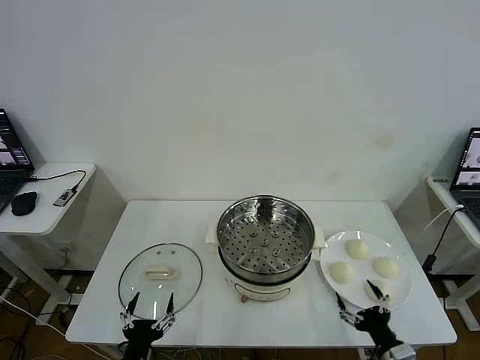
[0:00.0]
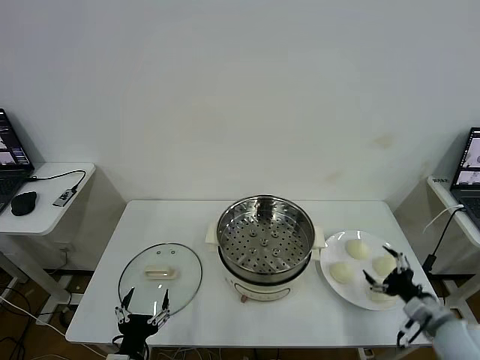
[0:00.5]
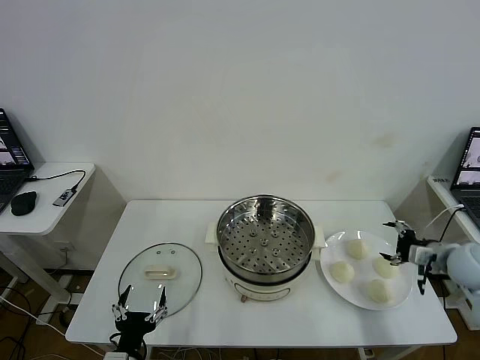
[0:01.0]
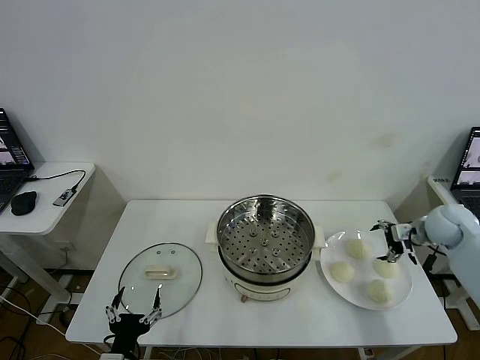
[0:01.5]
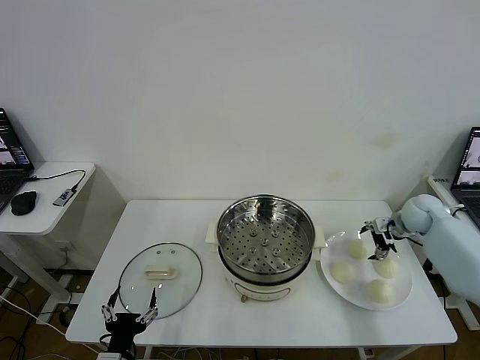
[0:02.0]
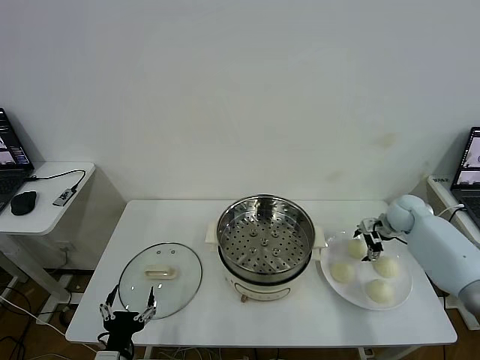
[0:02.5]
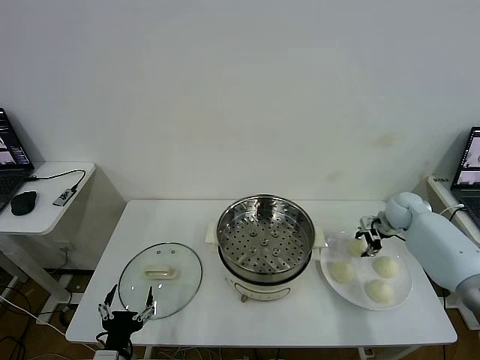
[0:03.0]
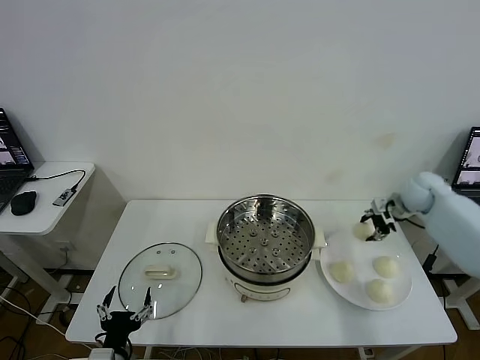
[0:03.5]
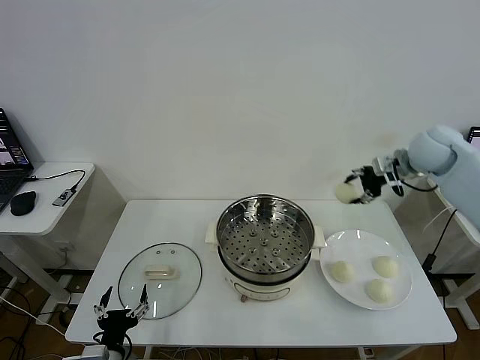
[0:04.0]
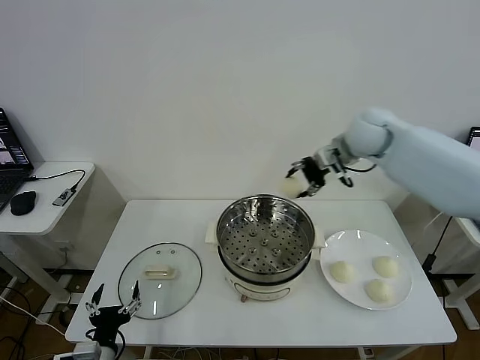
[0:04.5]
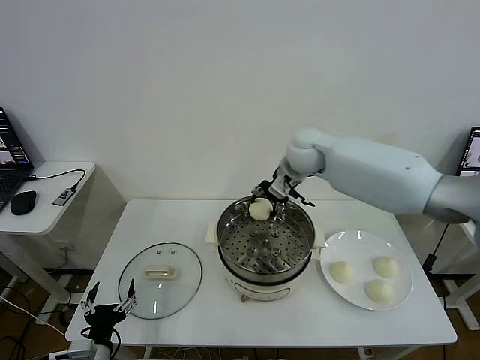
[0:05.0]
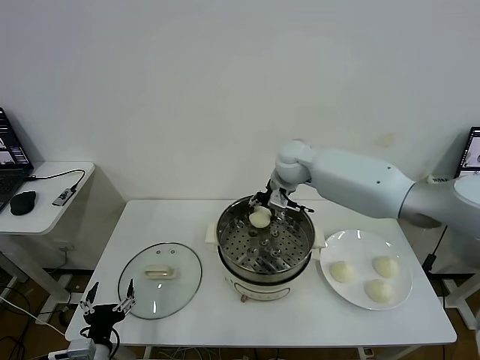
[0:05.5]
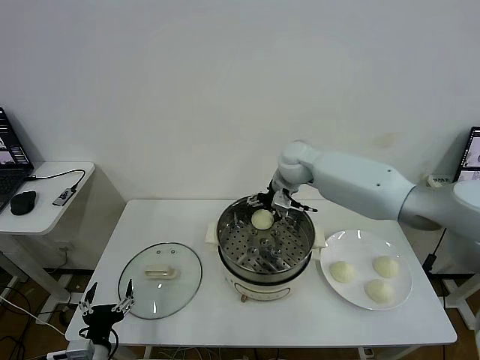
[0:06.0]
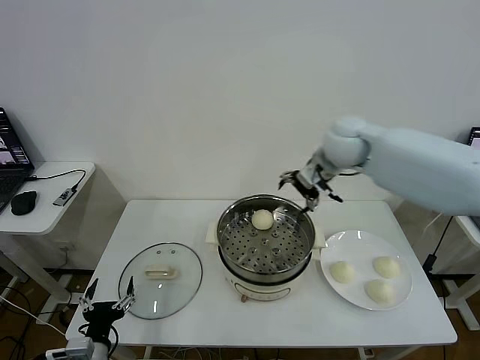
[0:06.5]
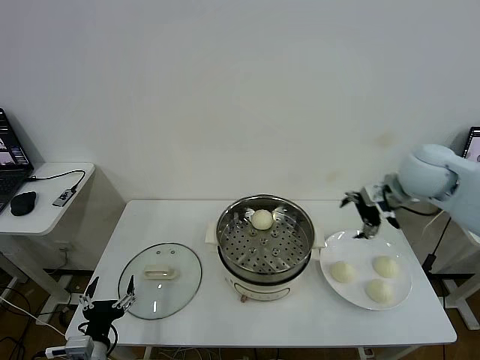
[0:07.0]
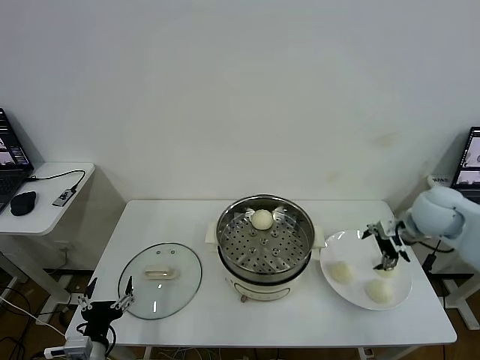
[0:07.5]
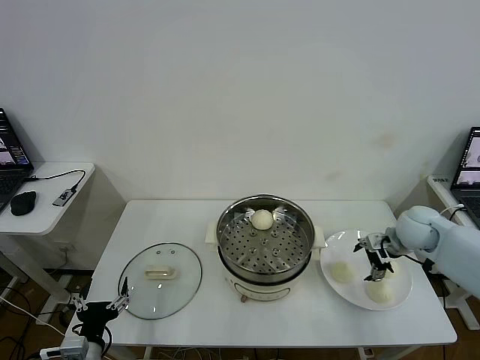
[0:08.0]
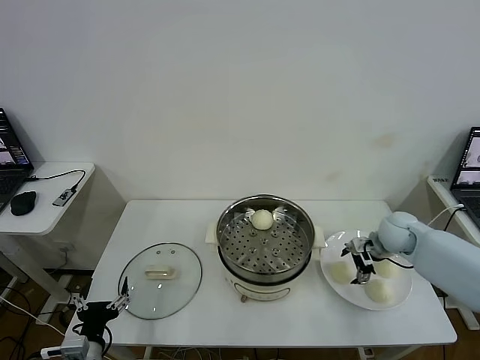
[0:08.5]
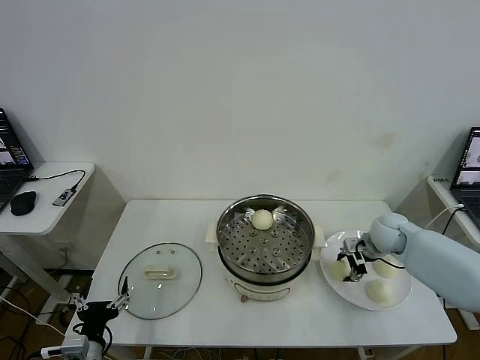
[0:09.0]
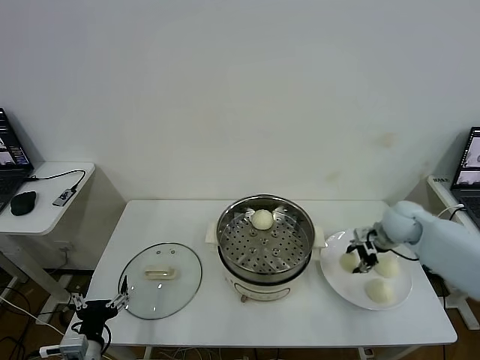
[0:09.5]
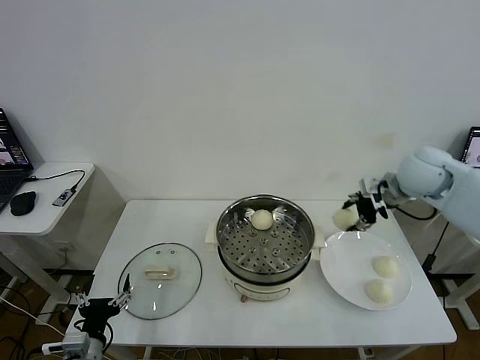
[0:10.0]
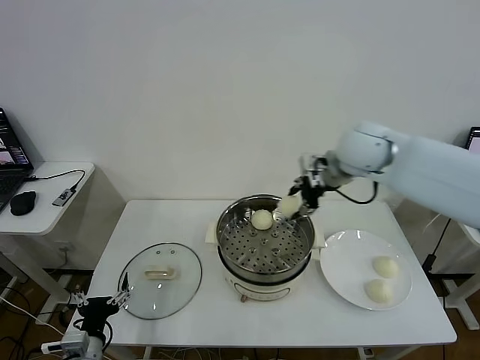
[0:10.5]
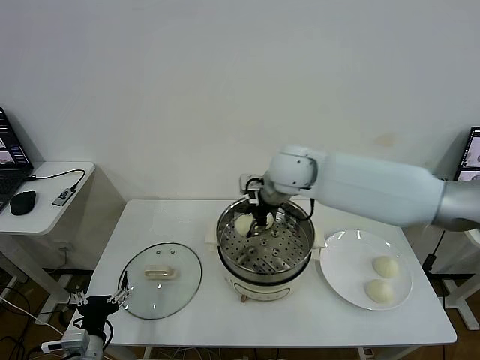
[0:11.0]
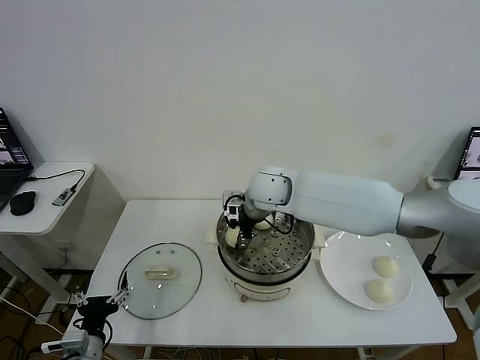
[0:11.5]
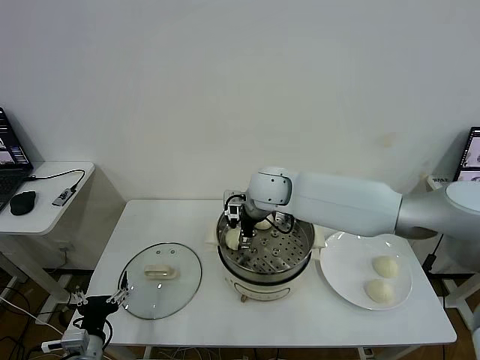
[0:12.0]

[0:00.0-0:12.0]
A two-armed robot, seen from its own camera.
Task of the whole recording: take steamed baozi put them in steamer then cover it.
Step, 0.0 to 2.5 s: Grasp the baozi in the plate with right gripper.
Step, 3.0 to 6.0 s: Place the baozi on the steamer with right gripper.
Step, 6.5 to 9.0 s: Grasp the baozi in the plate with right gripper.
2.0 to 4.0 s: The right gripper goes about 20 cm upward, and closes its fingers.
4.0 to 6.0 s: The right gripper moves to the left, about 25 cm, and opens its fingers.
6.0 to 8.0 s: The right gripper moves to the right, downward and backward, some 30 cm.
8.0 to 10.0 s: The right gripper shifts approximately 15 cm upward, and closes up.
10.0 to 12.0 s: The right gripper heads to the left, covering some 25 cm, and opens.

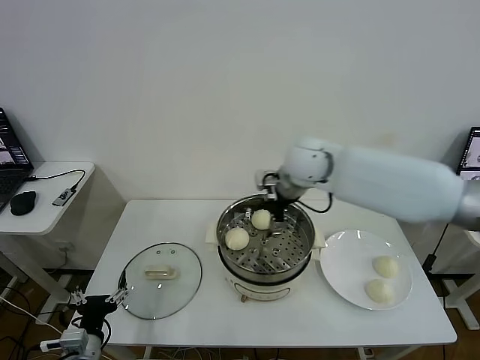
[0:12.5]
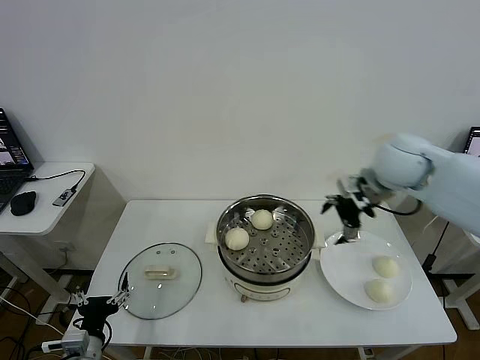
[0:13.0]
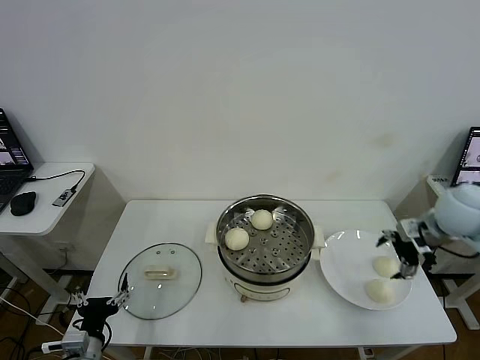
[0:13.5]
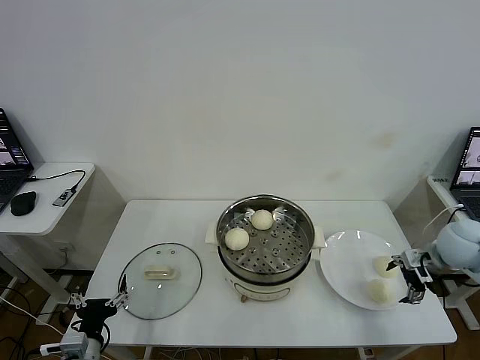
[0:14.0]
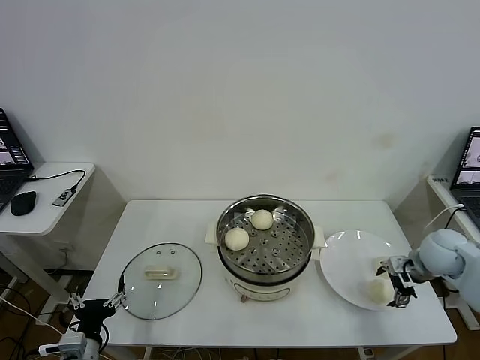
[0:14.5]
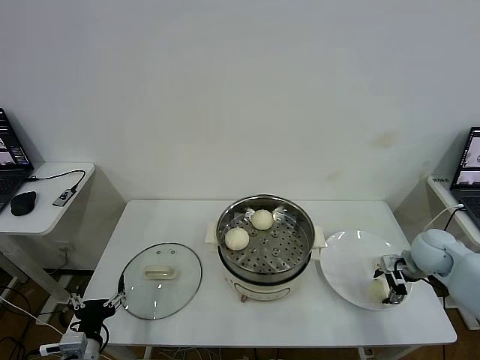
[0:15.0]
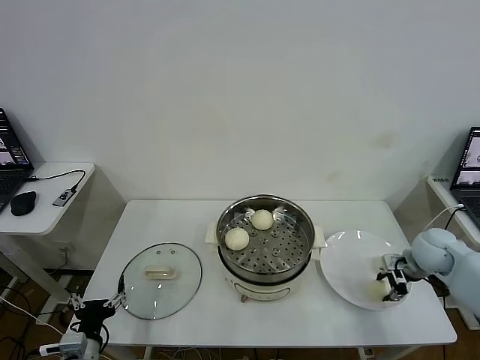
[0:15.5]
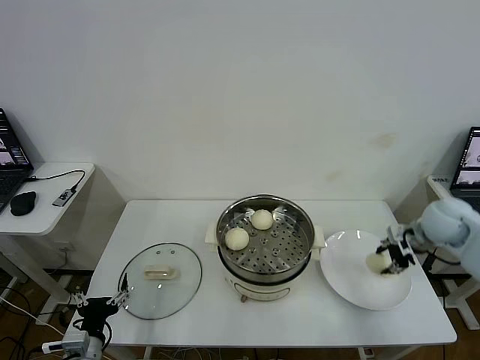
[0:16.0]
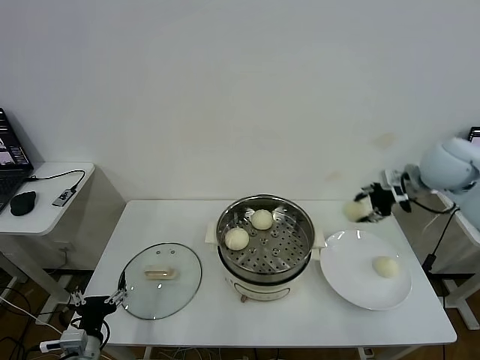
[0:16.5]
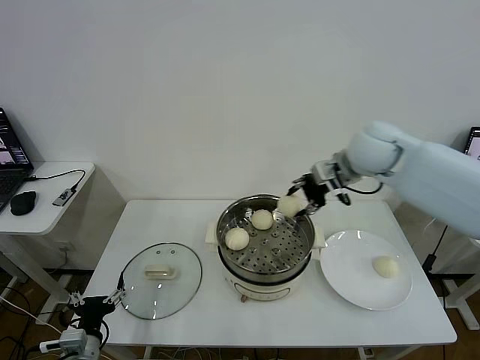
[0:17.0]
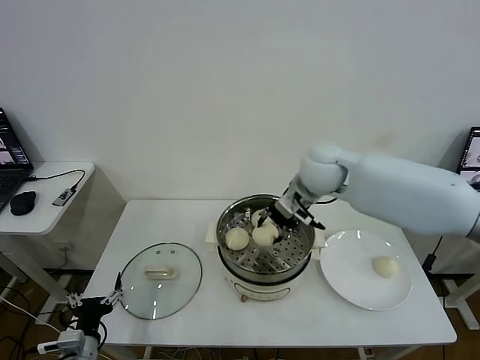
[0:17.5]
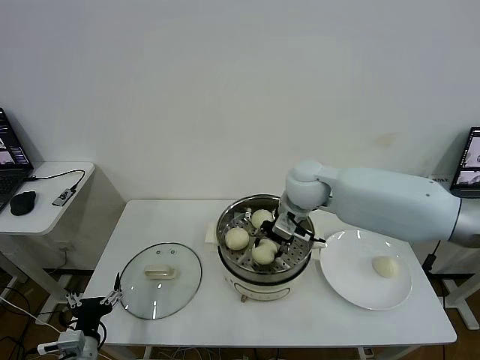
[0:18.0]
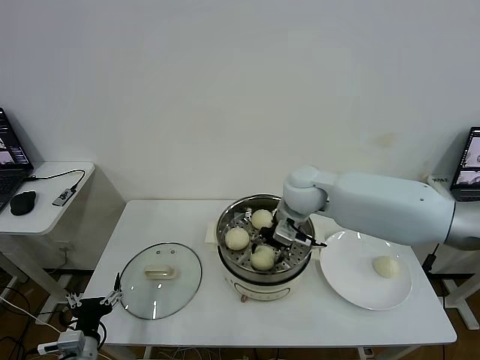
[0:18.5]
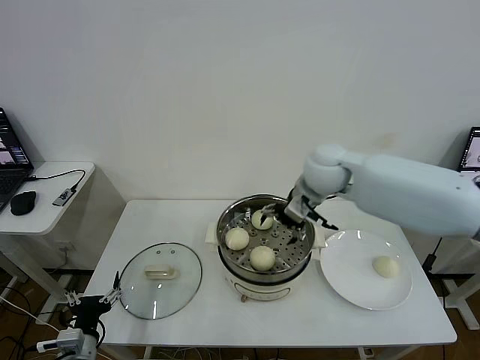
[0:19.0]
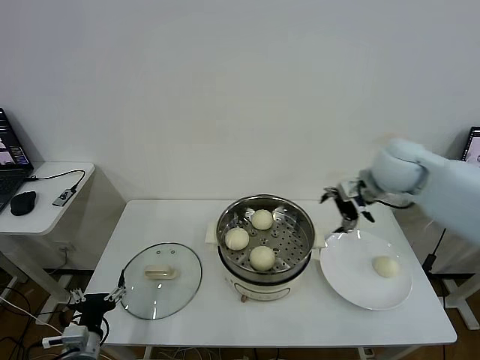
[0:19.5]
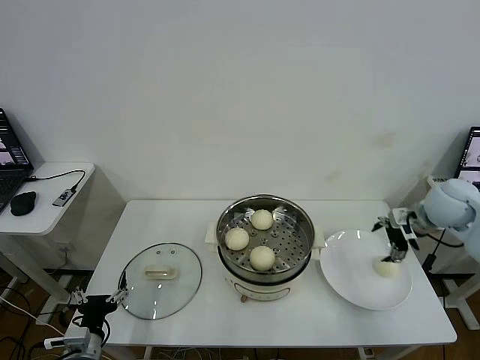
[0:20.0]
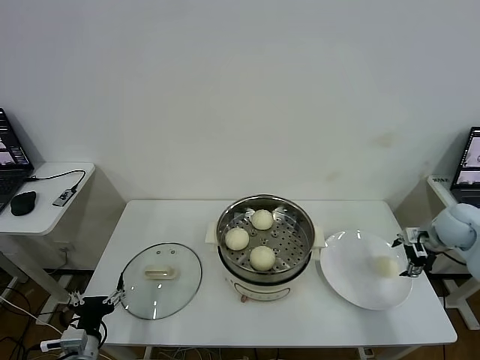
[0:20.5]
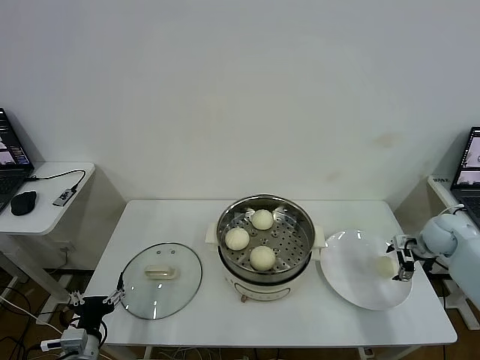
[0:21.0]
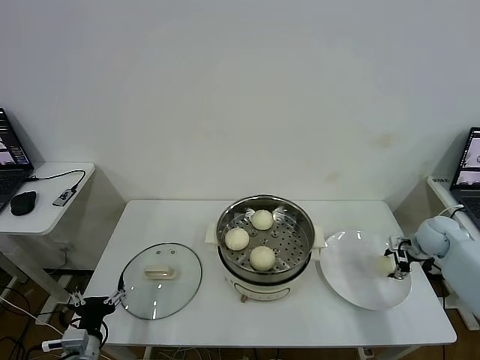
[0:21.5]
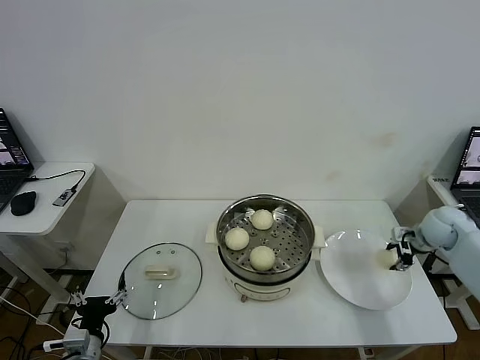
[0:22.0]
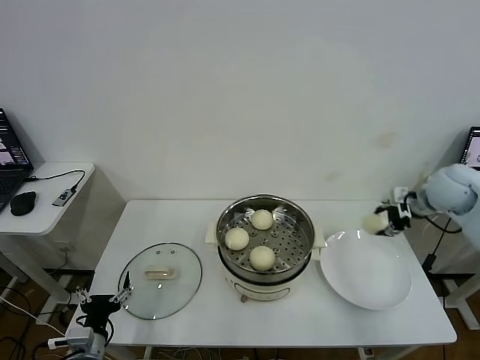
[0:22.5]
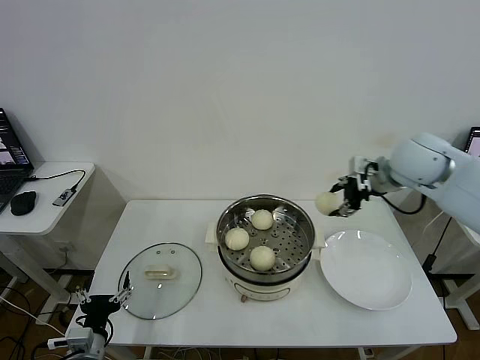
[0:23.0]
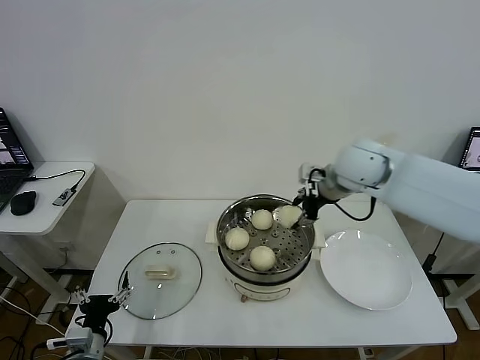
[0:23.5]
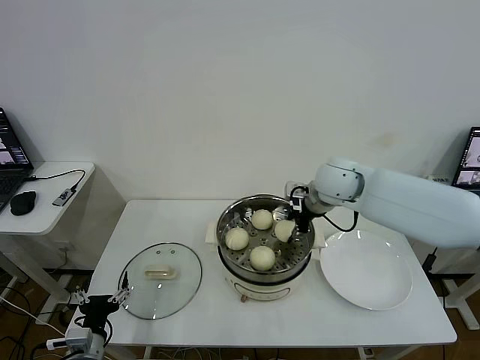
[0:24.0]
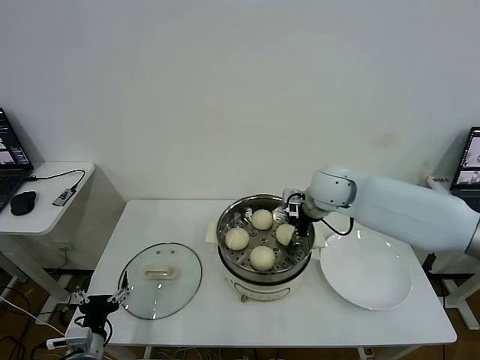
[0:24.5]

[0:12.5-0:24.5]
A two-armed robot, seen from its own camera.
Task of the whole recording: take steamed baozi put them in steamer then cover it.
Step, 12.5 to 15.0 s: Grasp the baozi in the plate with right gripper.
Step, 15.5 to 18.5 s: Place the baozi on the steamer with right gripper.
Step, 19.0 to 21.5 s: Grasp the baozi in the plate with right gripper.
12.5 to 14.5 s: The right gripper is displaced to the right and downward by roughly 35 cm.
14.5 to 16.5 s: The right gripper is displaced upward by some 20 cm, and closes.
16.5 to 18.5 s: The right gripper is displaced to the left by roughly 25 cm, and opens.
18.5 to 20.5 s: The right gripper shifts roughly 35 cm to the right, and opens its fingers.
20.5 to 22.5 s: The right gripper moves upward and to the left, about 10 cm, and closes up.
22.5 to 24.5 s: The right gripper moves to the left, approximately 25 cm.

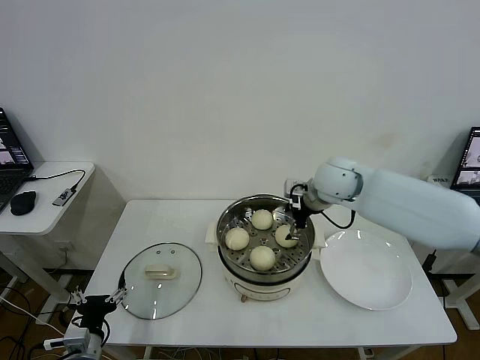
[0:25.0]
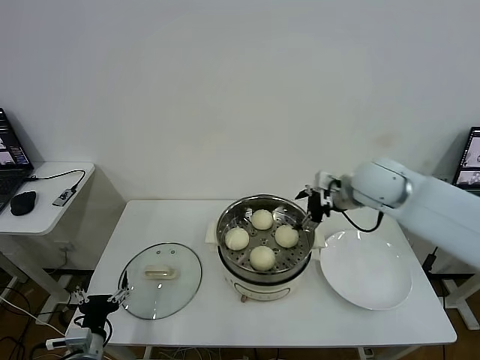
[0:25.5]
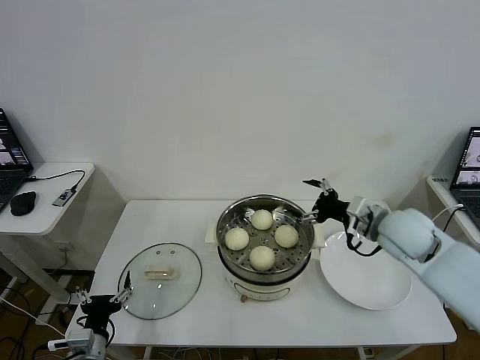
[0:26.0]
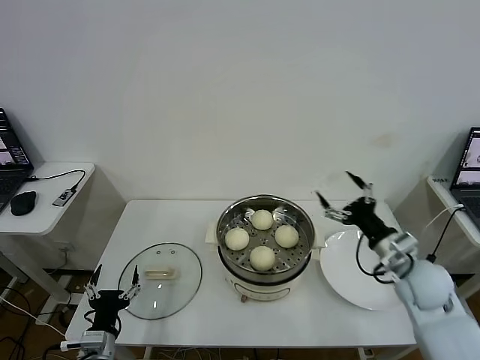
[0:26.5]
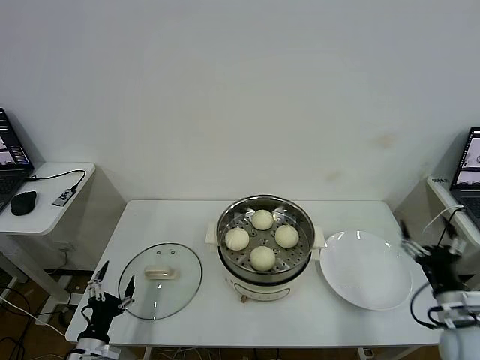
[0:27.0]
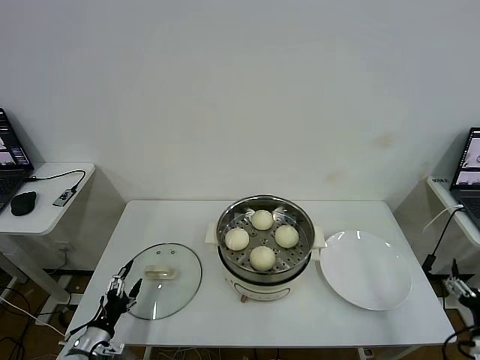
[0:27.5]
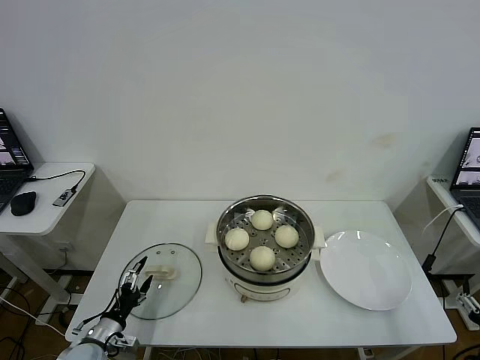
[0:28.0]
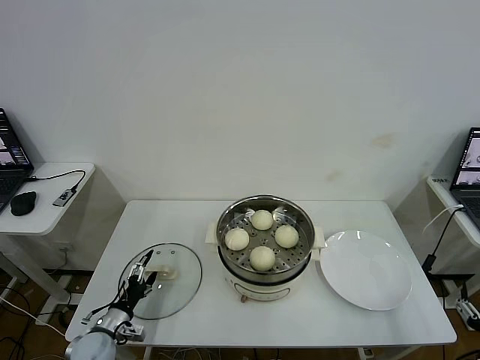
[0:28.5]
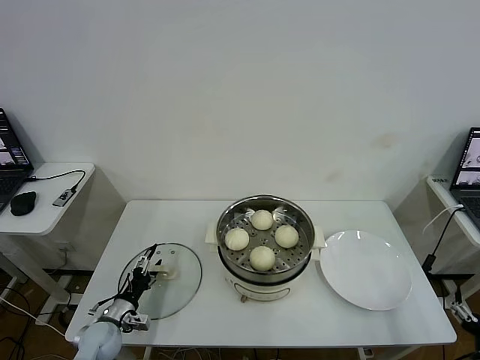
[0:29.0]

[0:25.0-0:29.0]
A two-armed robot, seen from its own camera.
Task of the whole recording: take steamed baozi put them in steamer then cover it.
25.0 to 27.0 s: The right gripper goes approximately 40 cm backward, to the right and downward.
27.0 to 29.0 s: The left gripper shifts some 10 cm forward. Meanwhile the right gripper travels backward and downward by roughly 15 cm.
